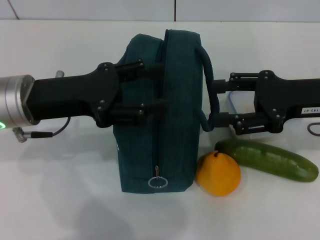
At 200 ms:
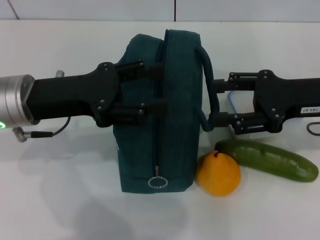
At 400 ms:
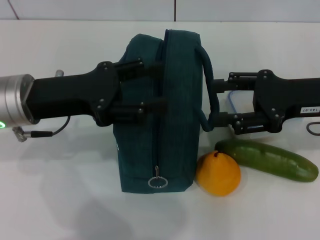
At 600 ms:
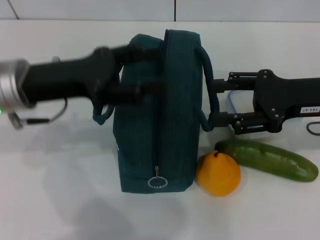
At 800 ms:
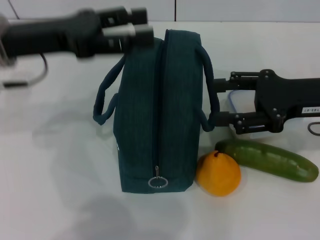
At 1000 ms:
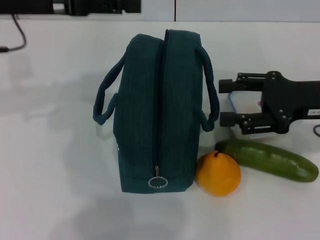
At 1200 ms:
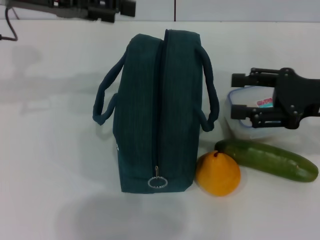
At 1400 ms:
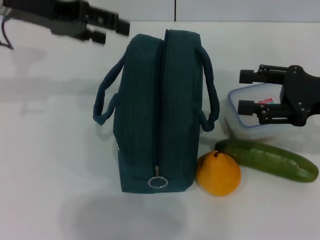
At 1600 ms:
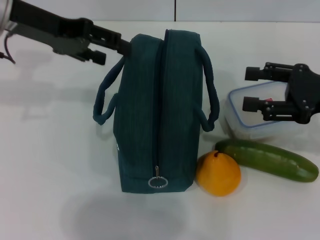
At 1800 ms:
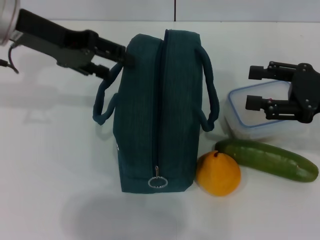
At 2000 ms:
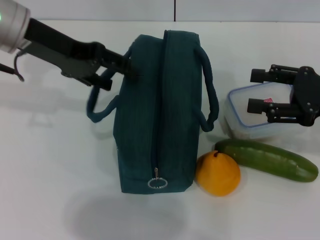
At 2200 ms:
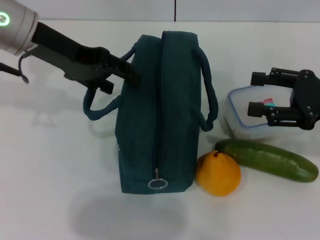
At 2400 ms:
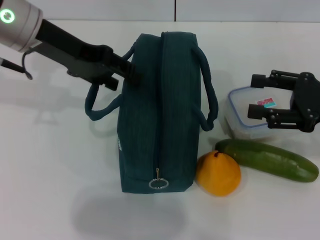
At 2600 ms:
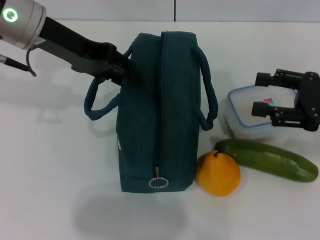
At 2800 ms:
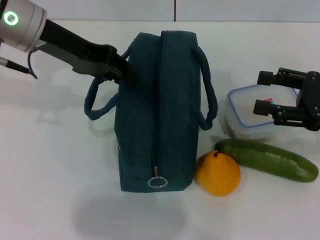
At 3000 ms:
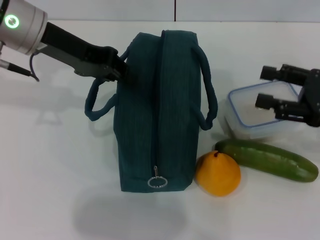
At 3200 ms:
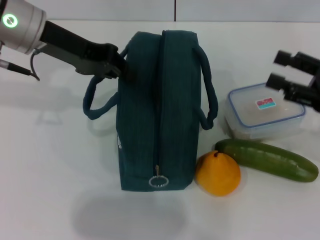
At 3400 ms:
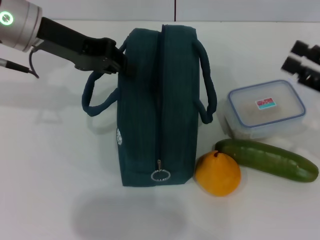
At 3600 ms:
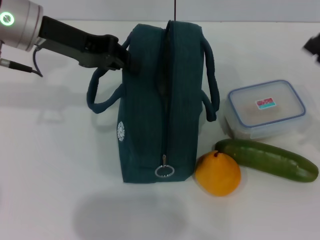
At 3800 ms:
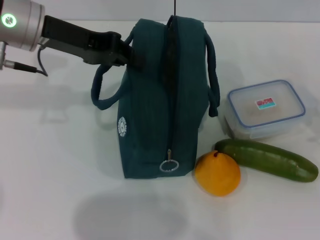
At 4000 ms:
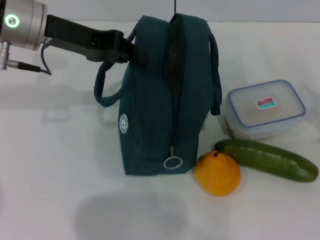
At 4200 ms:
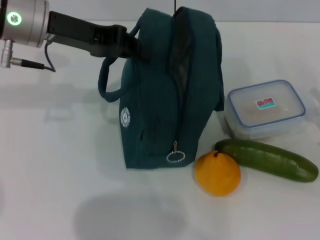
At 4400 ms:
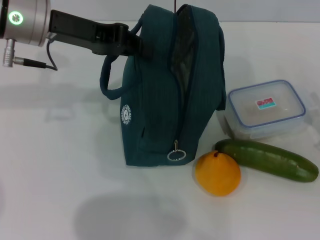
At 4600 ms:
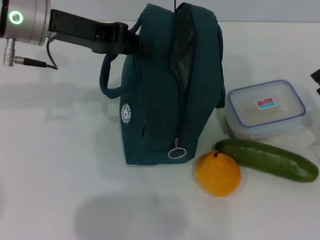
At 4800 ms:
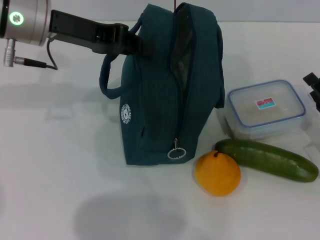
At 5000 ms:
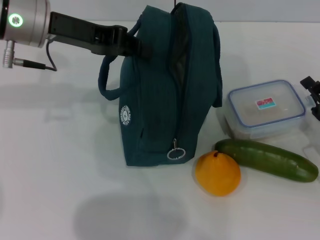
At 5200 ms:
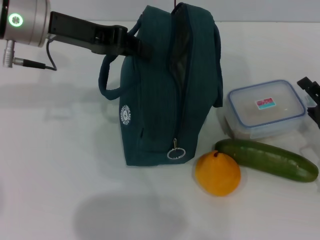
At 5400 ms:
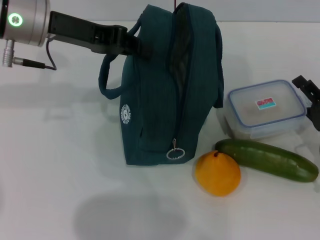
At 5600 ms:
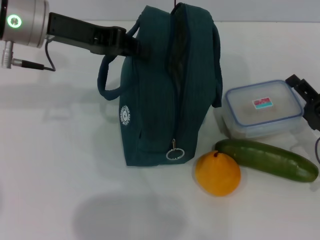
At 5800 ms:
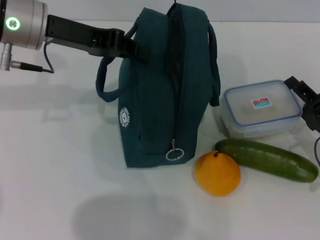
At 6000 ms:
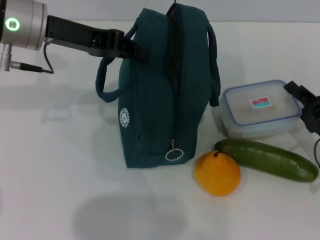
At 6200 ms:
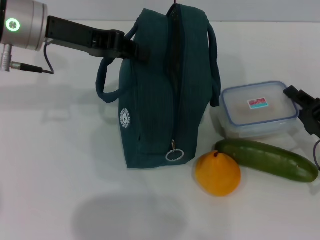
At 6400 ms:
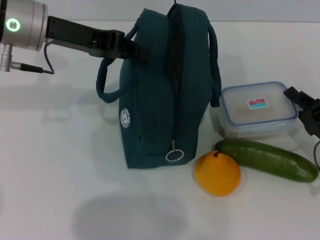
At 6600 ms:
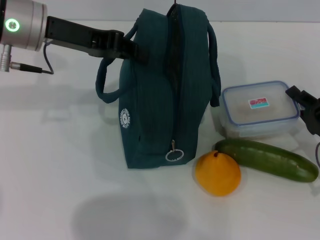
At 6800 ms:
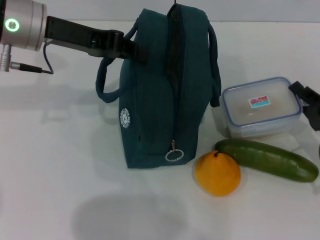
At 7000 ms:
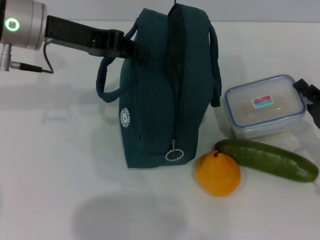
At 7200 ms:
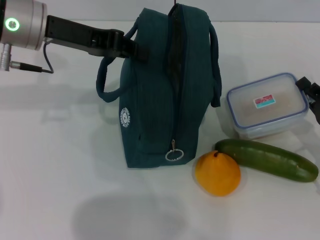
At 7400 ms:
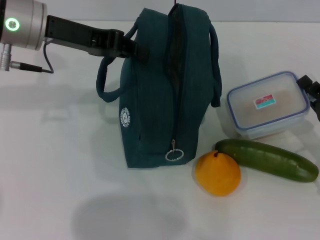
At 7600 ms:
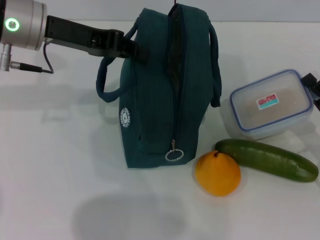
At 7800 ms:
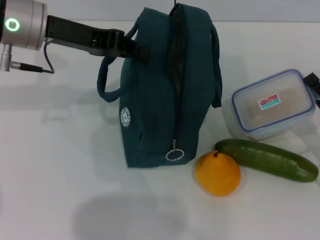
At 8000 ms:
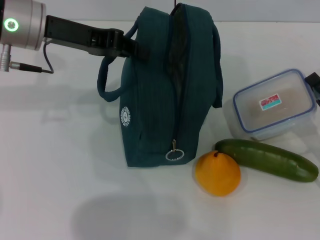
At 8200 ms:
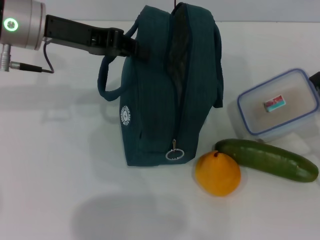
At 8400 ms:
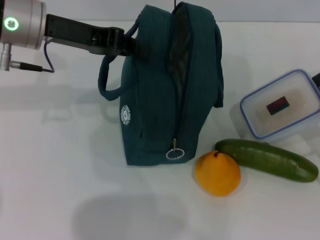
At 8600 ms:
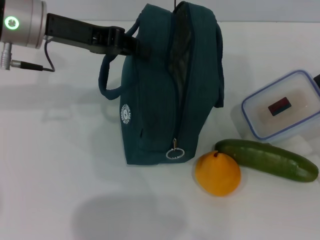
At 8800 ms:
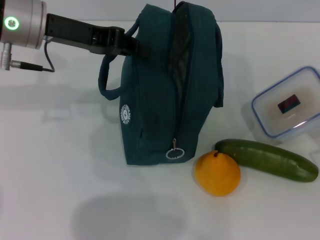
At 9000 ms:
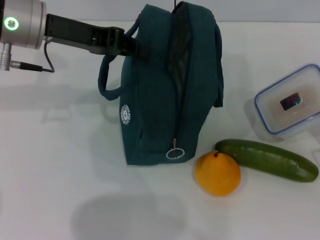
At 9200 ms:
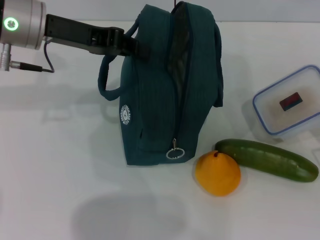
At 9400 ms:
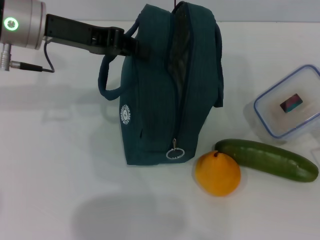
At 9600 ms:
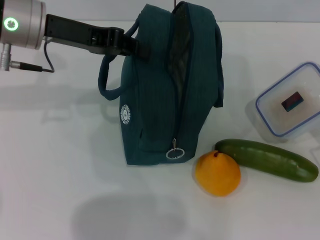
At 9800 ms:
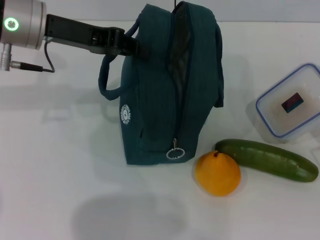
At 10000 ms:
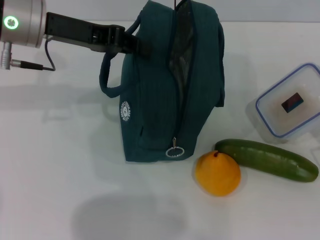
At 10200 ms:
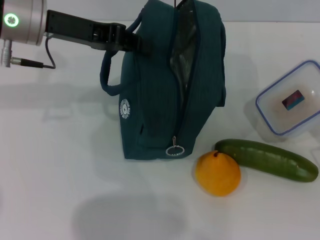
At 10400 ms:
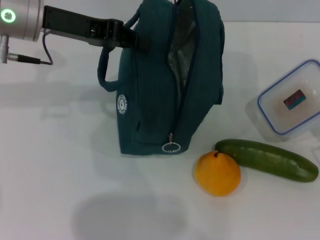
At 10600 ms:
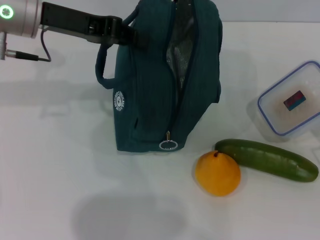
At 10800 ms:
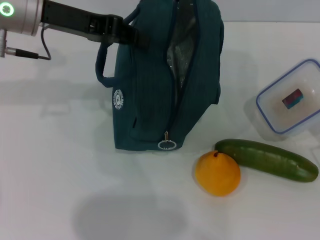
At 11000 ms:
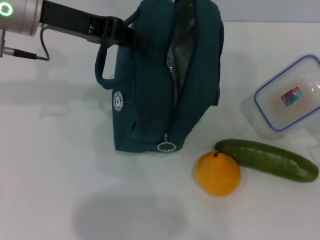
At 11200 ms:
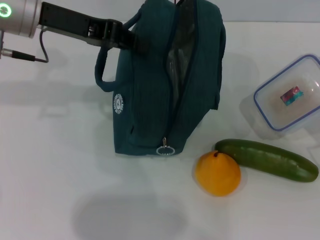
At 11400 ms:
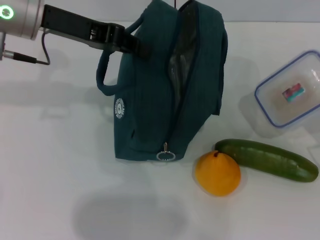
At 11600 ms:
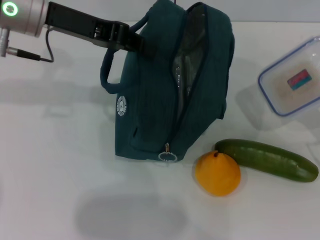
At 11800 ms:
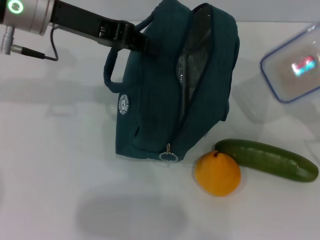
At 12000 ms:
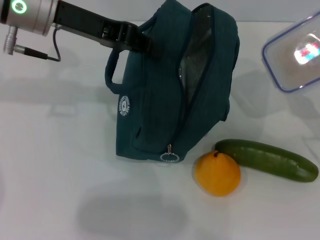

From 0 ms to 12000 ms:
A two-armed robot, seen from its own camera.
Step, from 0 ms to 4200 ms: Hold the lunch bag with your left hand.
Step, from 4400 ms to 7000 ms: Pick up the lunch box with your right hand.
From 0 ms to 1600 ms: The left gripper is displaced upward and forward by approximately 15 cm.
From 1600 ms to 3000 ms: The left gripper closes.
From 3000 ms to 4400 ms: The left gripper closes, while the right gripper travels downward by about 10 cm.
From 4400 ms to 6000 ms: The grippers make only small movements.
From 6000 ms to 7600 ms: The right gripper closes up.
From 7600 ms to 9000 ms: The grippers move only a little.
From 9000 ms to 10400 ms: Neither gripper changes place.
From 10400 ms to 12000 ms: There are only small adjustments of the grippers.

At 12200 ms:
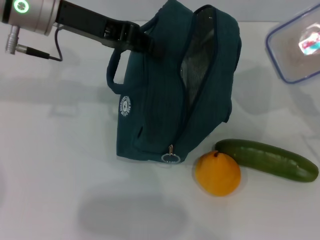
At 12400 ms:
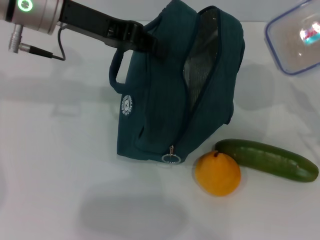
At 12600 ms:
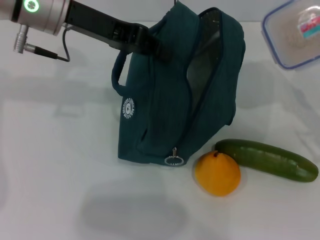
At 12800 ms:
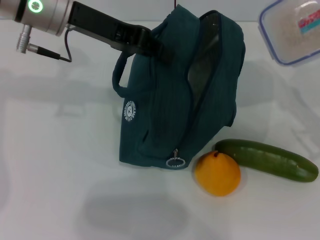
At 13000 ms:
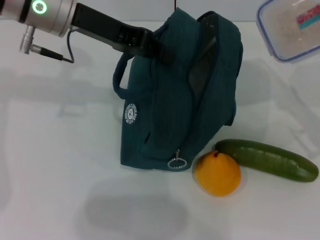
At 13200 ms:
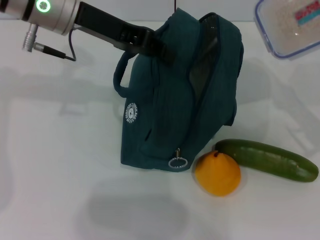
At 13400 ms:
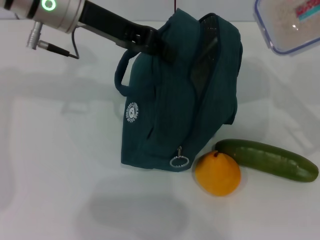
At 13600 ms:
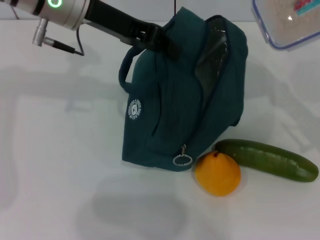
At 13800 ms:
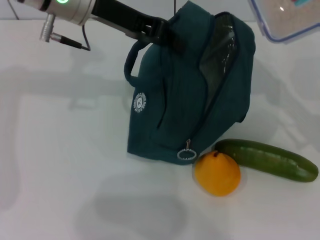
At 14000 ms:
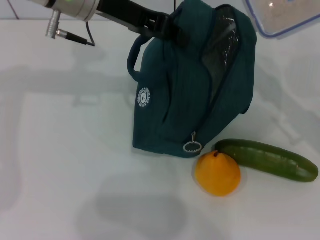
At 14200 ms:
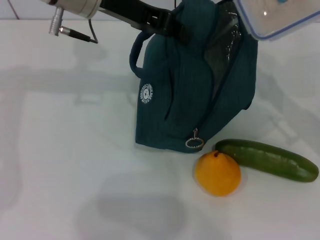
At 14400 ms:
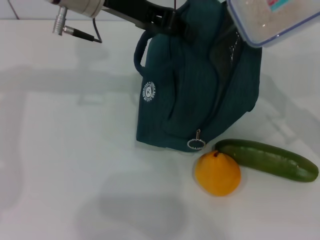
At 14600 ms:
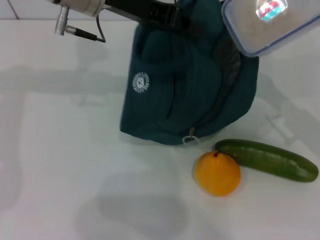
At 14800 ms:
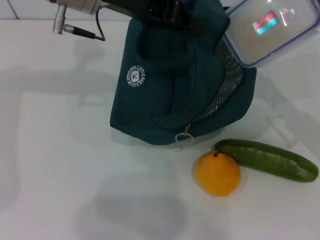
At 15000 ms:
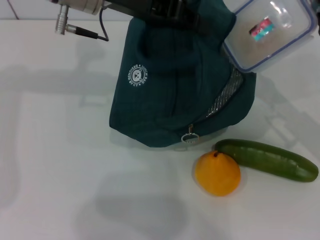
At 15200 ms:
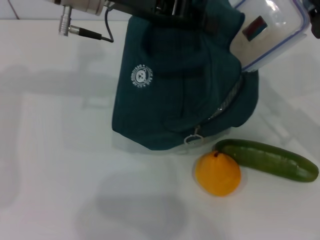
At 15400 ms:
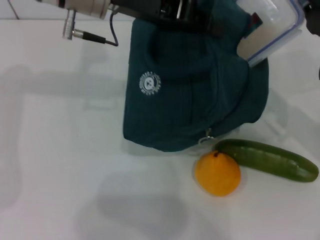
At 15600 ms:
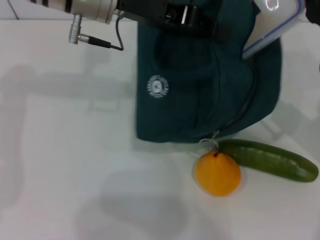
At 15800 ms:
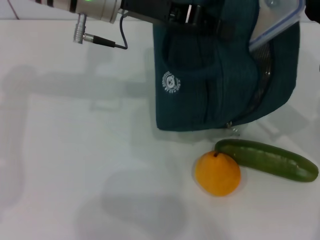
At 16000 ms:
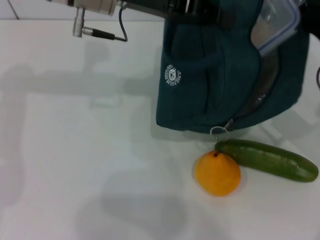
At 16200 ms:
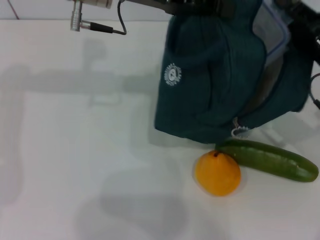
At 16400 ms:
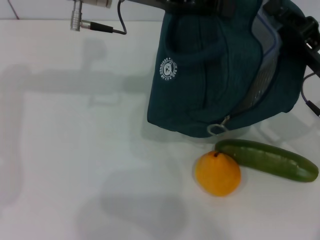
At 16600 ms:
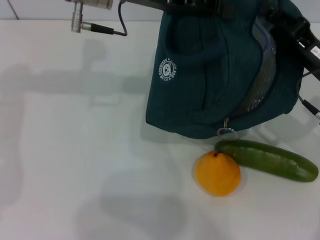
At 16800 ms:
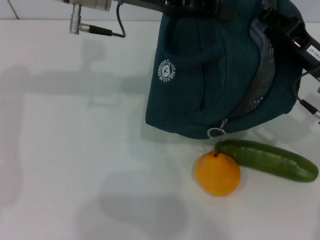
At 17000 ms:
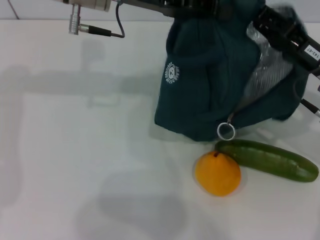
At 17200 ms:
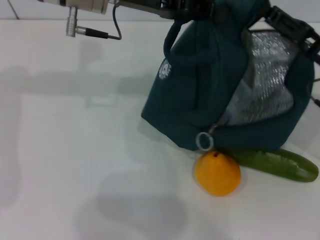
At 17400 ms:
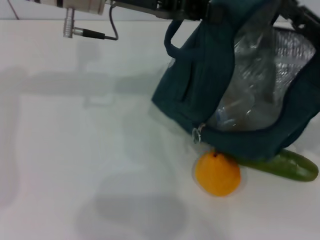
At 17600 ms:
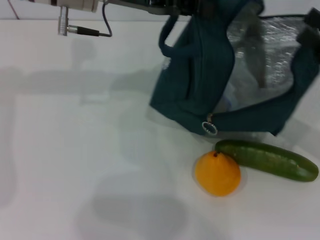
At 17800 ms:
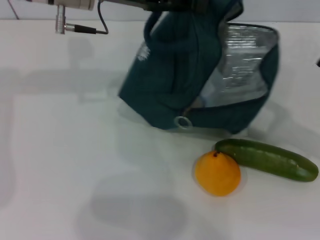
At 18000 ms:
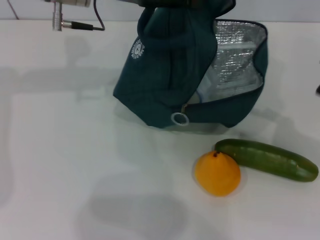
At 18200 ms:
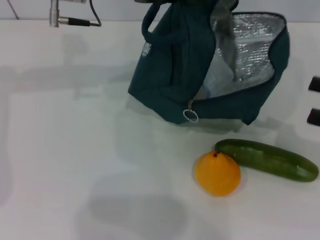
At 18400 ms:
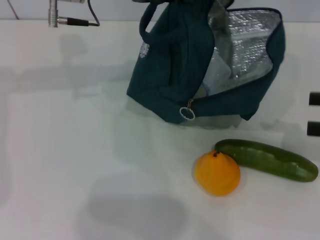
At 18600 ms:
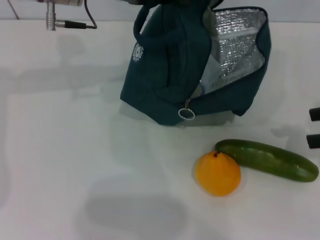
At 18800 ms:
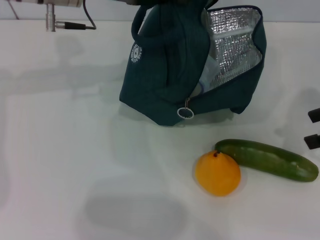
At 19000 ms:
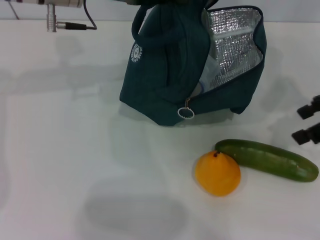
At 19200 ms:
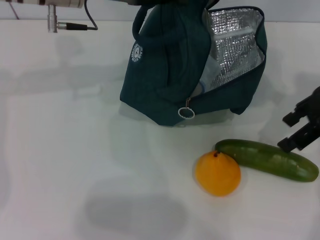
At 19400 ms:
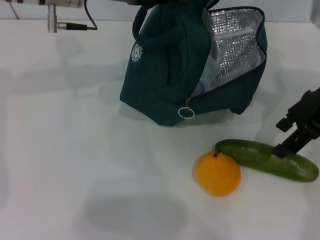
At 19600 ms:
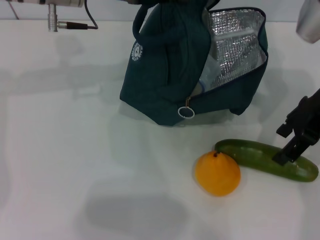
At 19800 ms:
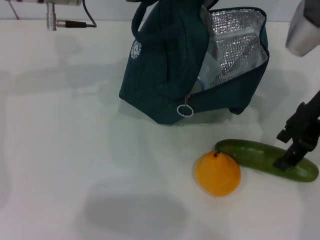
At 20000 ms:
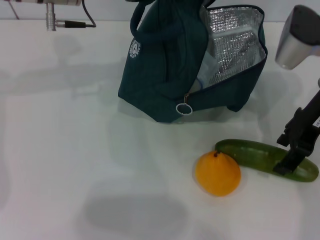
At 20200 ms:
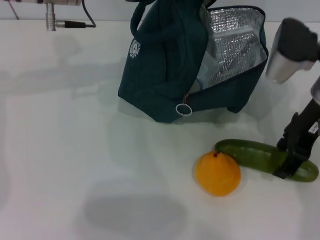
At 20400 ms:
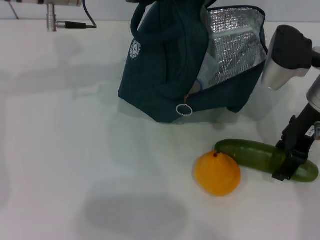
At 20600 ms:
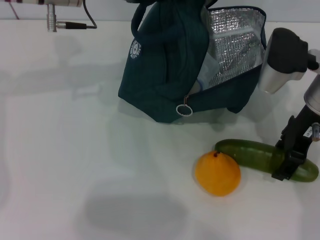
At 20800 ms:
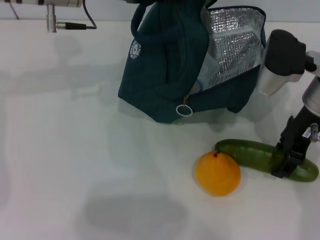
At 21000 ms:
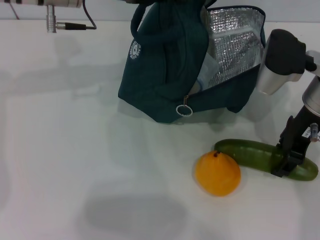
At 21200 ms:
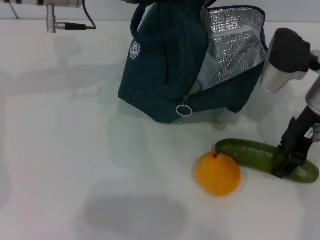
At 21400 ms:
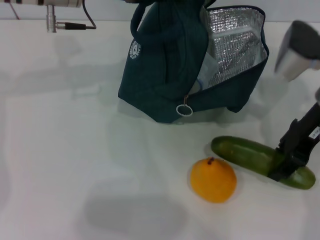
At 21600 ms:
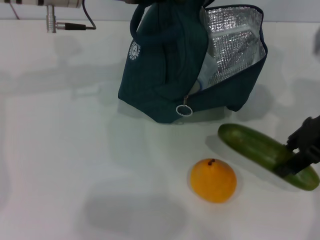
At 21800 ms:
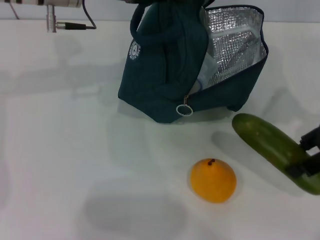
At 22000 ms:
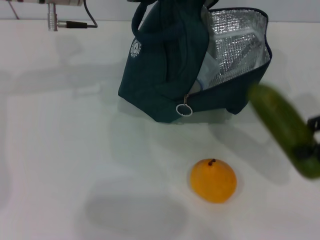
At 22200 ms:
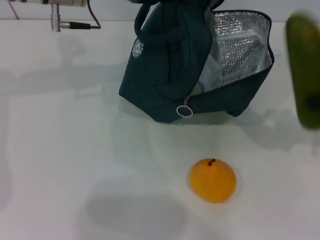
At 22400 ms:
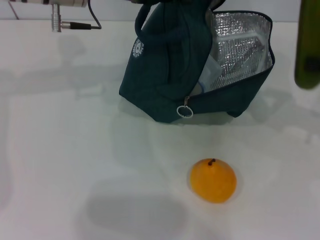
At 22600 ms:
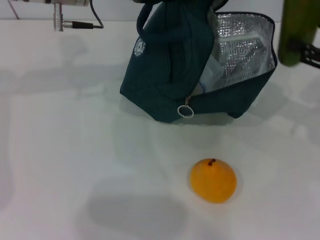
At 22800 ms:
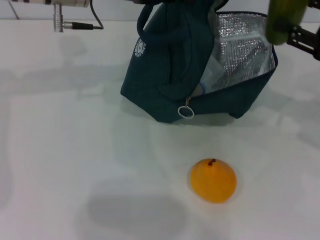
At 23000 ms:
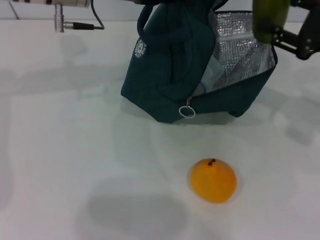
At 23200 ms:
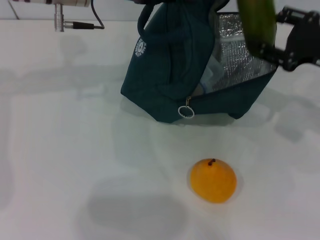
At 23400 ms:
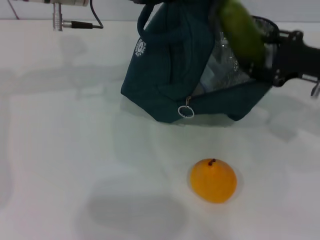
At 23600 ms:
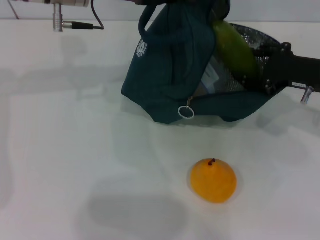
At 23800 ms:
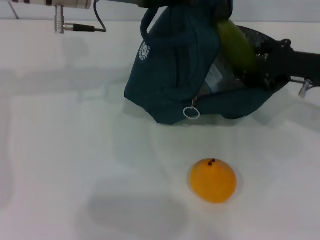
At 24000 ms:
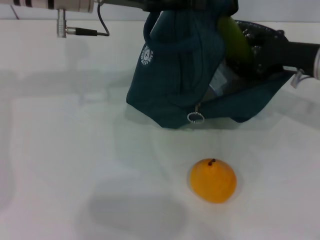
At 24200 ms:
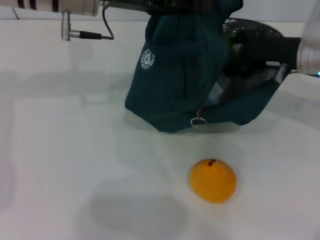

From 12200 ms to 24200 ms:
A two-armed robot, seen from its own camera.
Step, from 12200 ms to 17800 ms: Place the lunch box into the lunch bag with your right hand.
Step, from 18000 ms to 21000 ms: Pick up the cucumber with your right hand.
From 12200 ms to 13800 ms: The right gripper moves approximately 5 cm.
From 13800 ms to 15200 ms: The grippers move only a little.
From 16600 ms to 18200 ms: The right gripper is displaced to the right and backward by about 15 cm, and opens its fingers.
From 18200 ms to 19800 ms: The right gripper is displaced to the left, forward and upward by roughly 20 cm.
From 19800 ms to 21200 ms: The grippers move only a little.
From 21200 ms to 22600 ms: The right gripper is displaced to the right by some 15 cm.
From 22600 ms to 24200 ms: The right gripper is displaced to the left and forward by roughly 15 cm.
